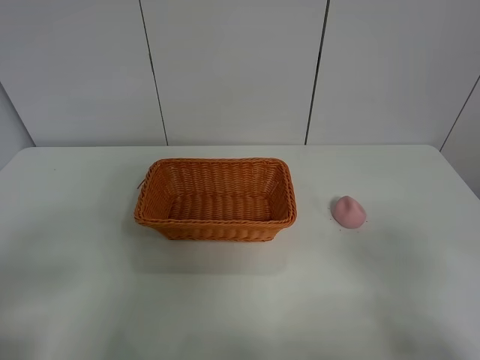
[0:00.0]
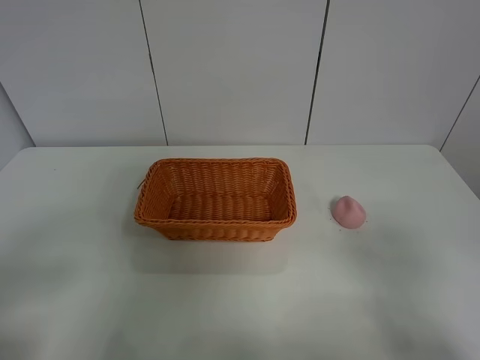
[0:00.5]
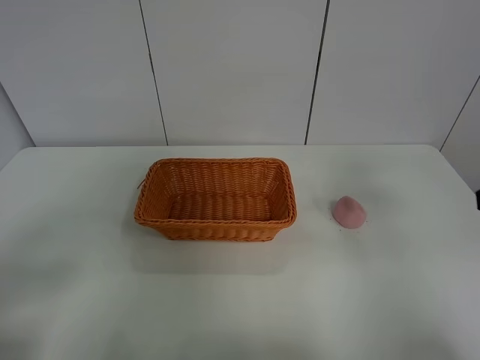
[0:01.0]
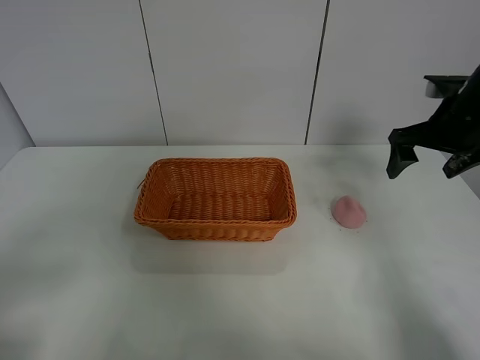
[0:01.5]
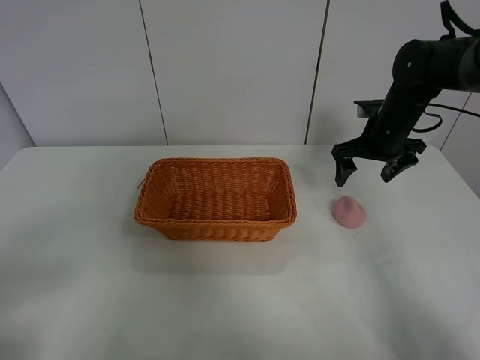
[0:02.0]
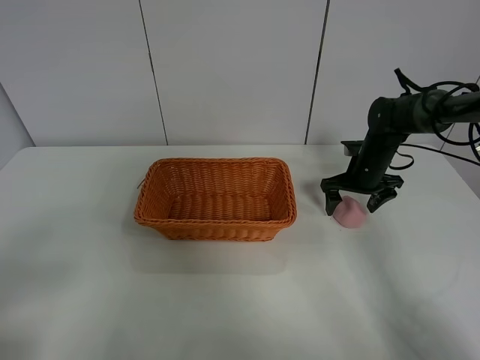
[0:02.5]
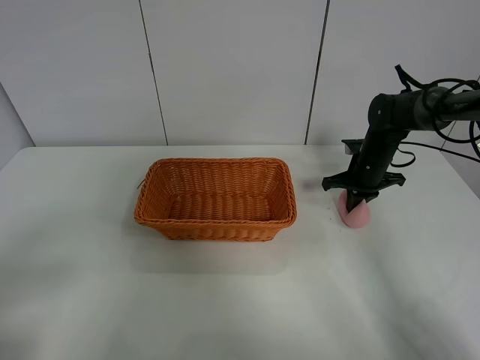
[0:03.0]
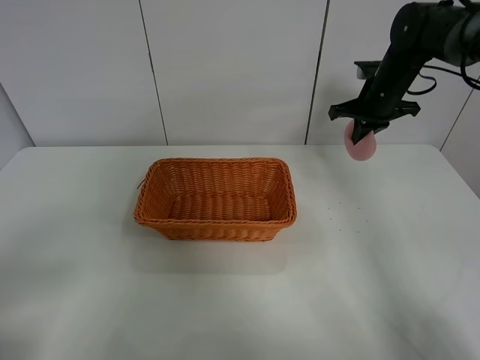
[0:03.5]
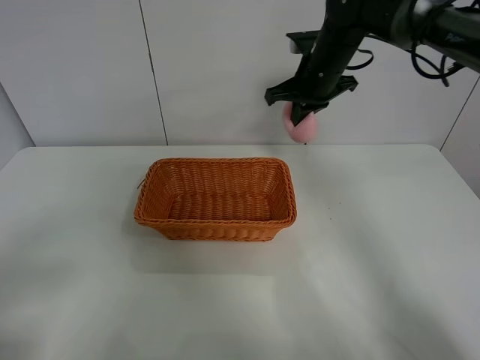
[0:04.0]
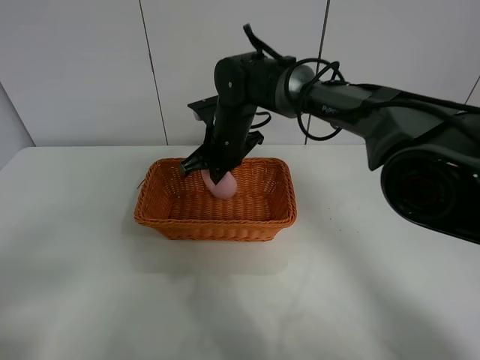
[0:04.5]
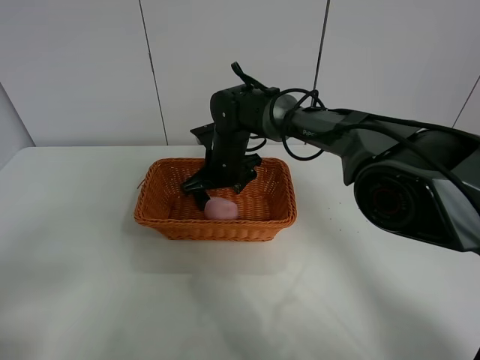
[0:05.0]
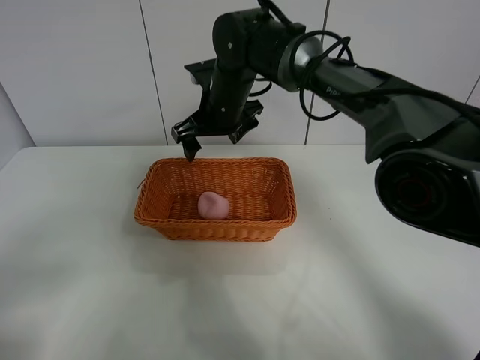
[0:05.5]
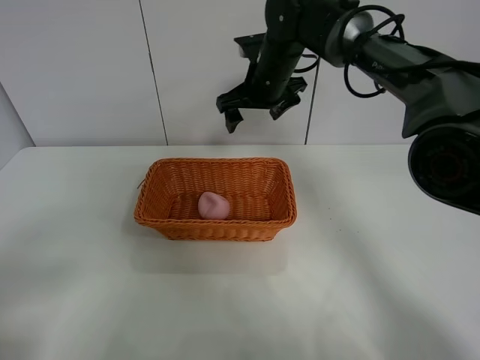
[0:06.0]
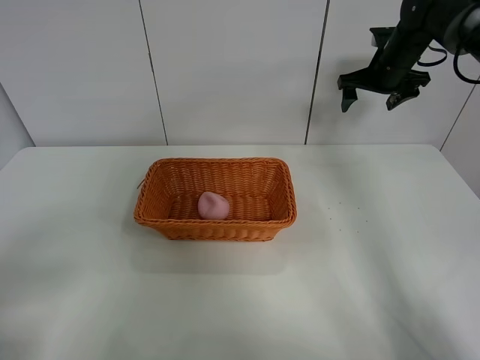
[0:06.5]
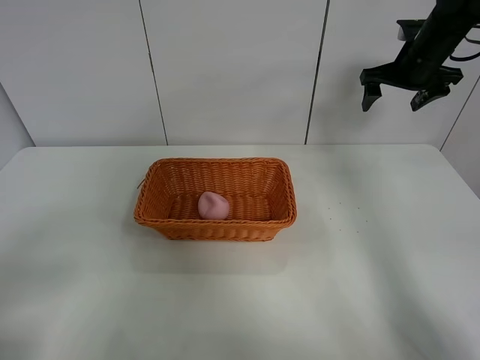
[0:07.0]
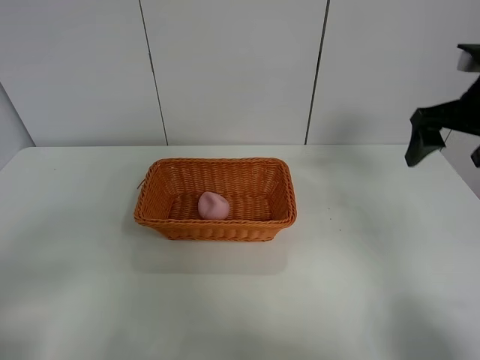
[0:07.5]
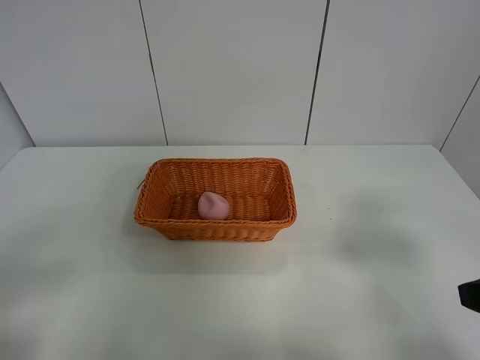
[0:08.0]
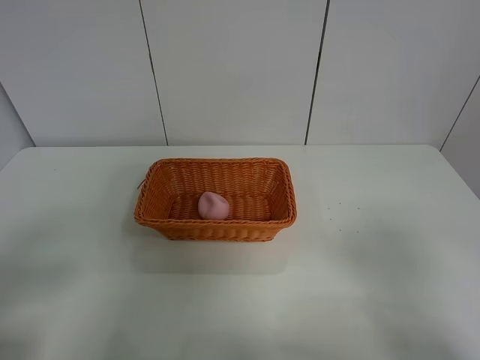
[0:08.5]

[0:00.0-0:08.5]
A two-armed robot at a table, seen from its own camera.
Step, 0:00.0 to 0:03.0: Grasp the peach with right gripper.
Step, 0:03.5 to 0:05.0: Place the peach in the basket with right gripper.
0:02.0 to 0:04.0: The right gripper travels to the left and upward by approximately 10 cm, and closes its fingers.
0:04.0 to 0:06.5: The right gripper travels to the right and forward by about 10 cm, and opens.
0:06.5 to 0:08.5: The right gripper moves backward, about 50 cm.

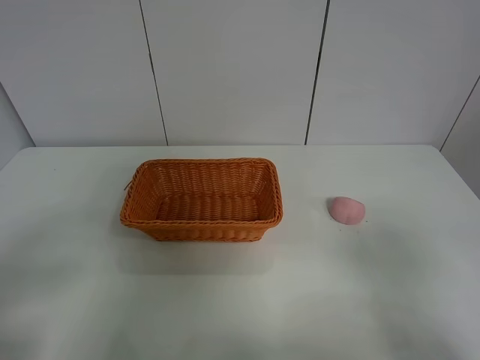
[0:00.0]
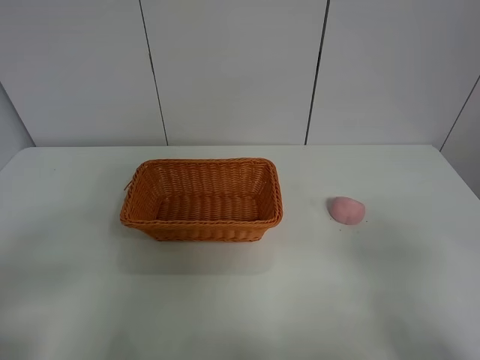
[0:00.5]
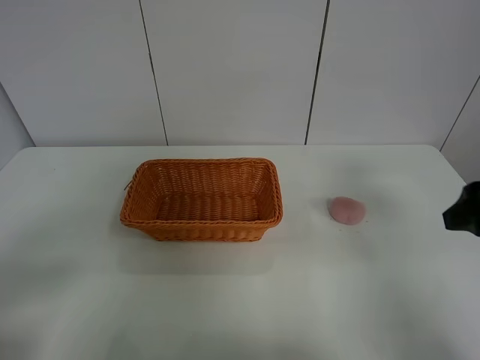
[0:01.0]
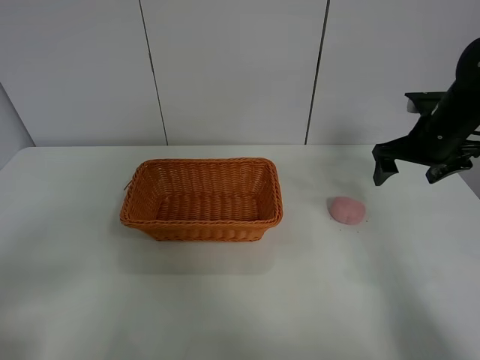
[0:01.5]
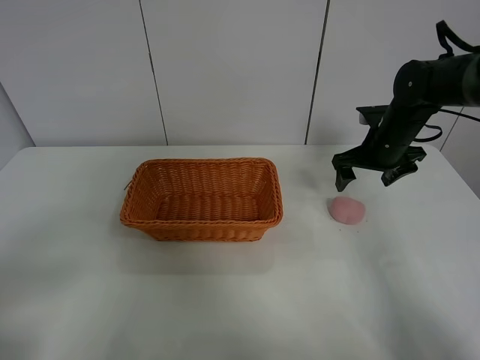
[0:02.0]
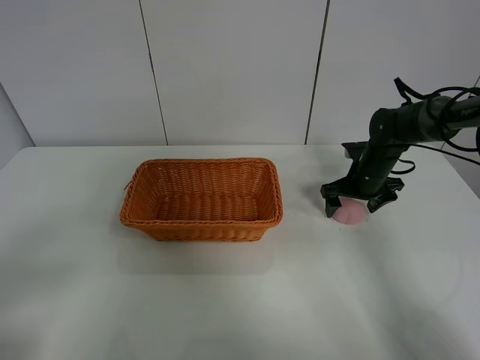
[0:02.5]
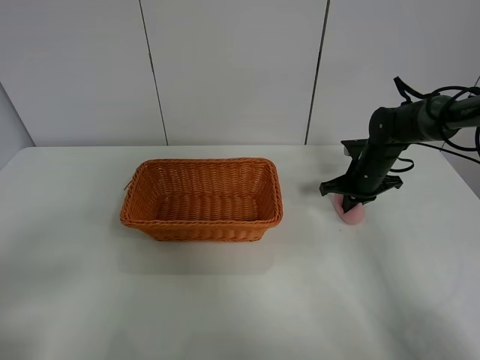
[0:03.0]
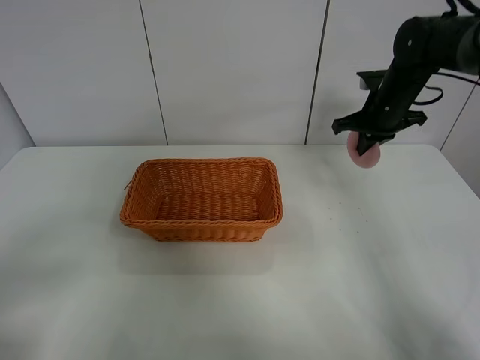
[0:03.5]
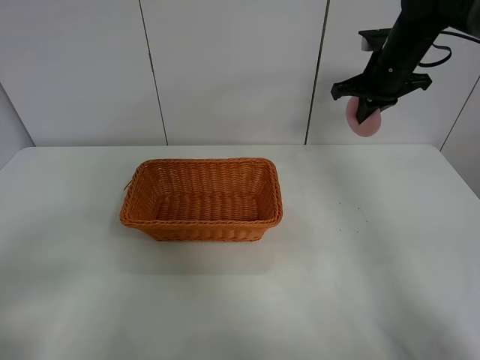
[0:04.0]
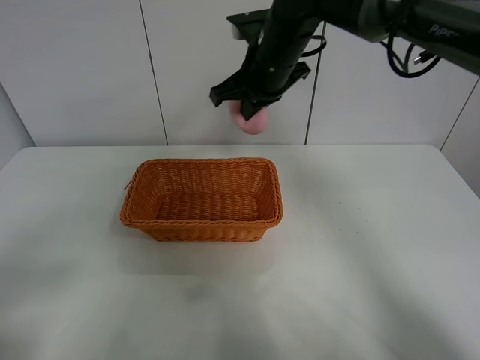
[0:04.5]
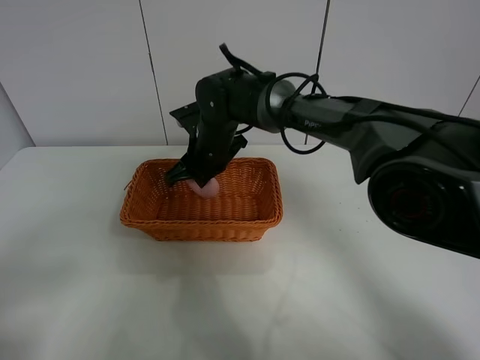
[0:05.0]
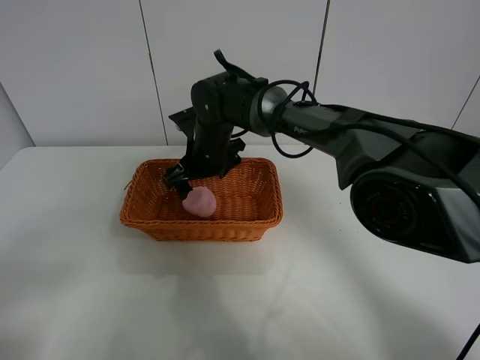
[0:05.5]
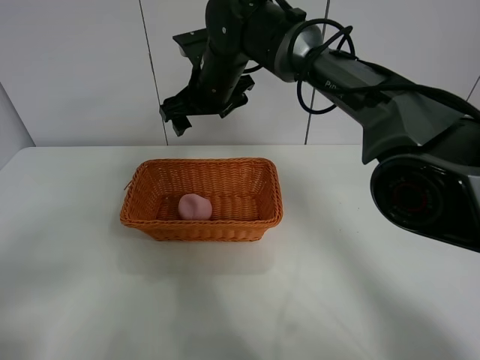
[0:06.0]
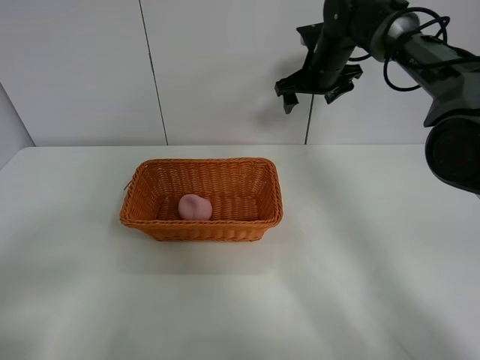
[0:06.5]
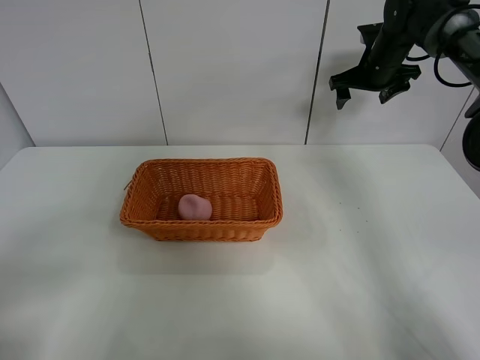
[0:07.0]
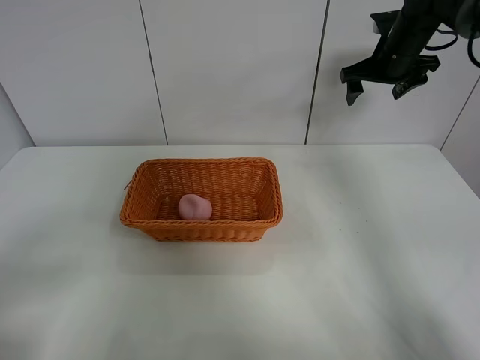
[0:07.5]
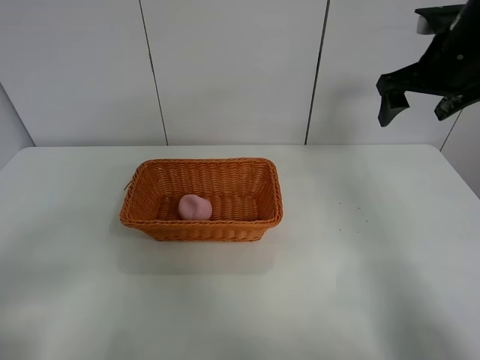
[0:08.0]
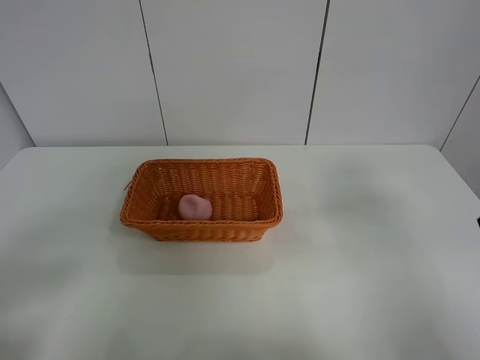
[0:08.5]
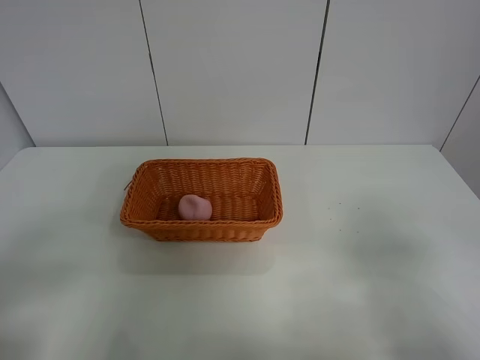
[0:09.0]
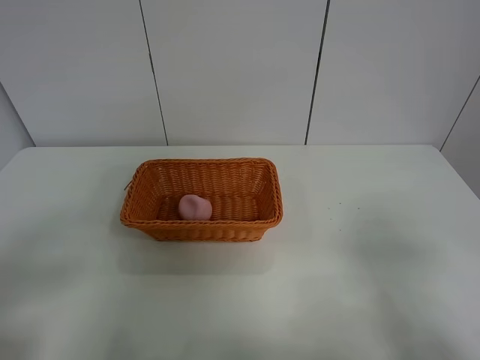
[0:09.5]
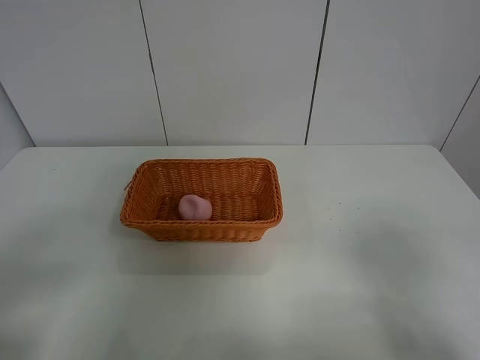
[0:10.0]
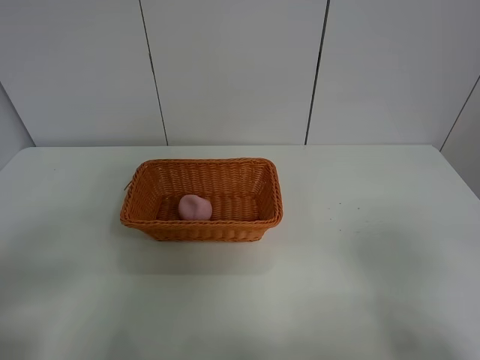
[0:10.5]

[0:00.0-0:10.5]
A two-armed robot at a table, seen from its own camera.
Step, 0:00.0 to 0:03.0: Grasp the peach with right gripper.
Step, 0:03.5 to 0:06.0: Place the peach in the basket with right gripper.
0:02.0 to 0:04.0: The right gripper moves upward, about 10 cm, and closes up.
0:04.0 to 0:06.5: The right gripper goes some 15 cm to the left, and opens up.
0:06.5 to 0:08.5: The right gripper is displaced backward and to the right by some 35 cm.
0:08.5 to 0:10.5: The right gripper goes roughly 15 cm backward and downward.
